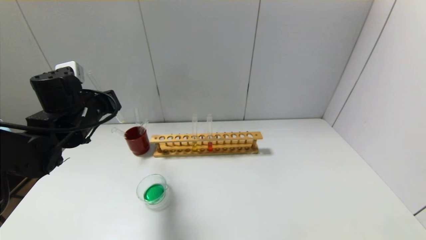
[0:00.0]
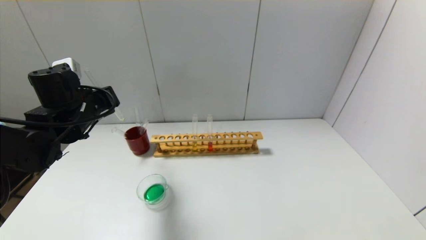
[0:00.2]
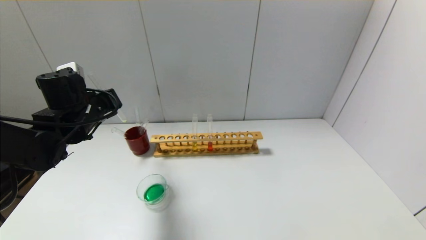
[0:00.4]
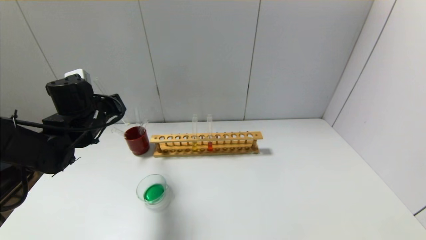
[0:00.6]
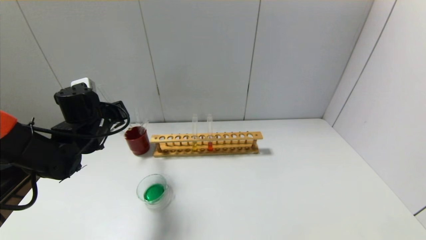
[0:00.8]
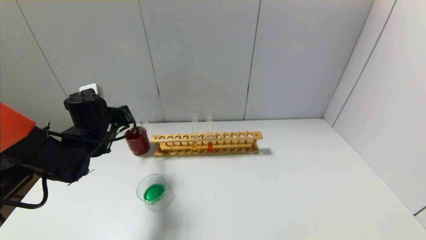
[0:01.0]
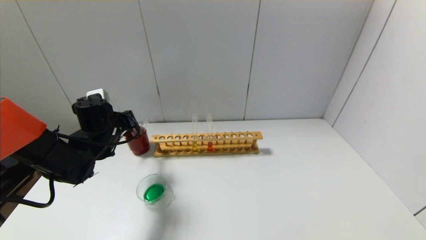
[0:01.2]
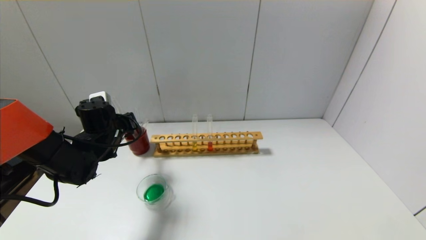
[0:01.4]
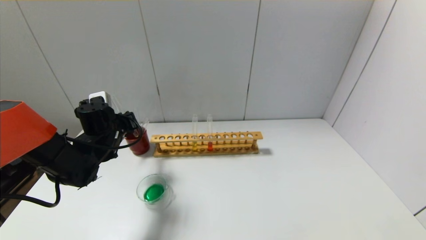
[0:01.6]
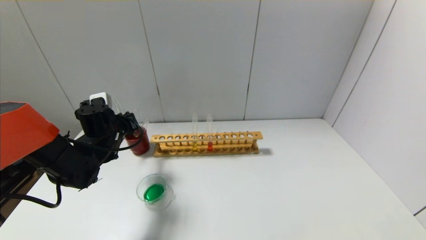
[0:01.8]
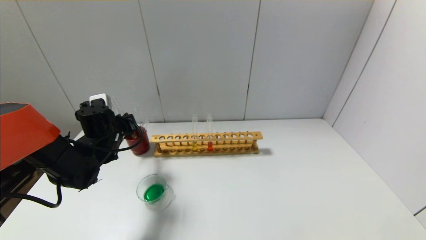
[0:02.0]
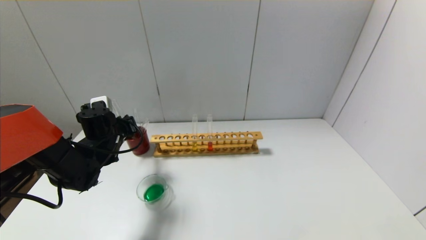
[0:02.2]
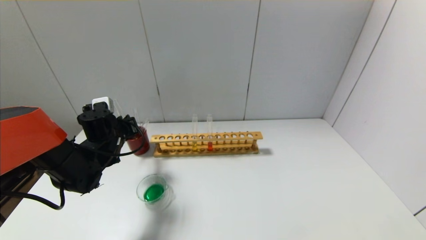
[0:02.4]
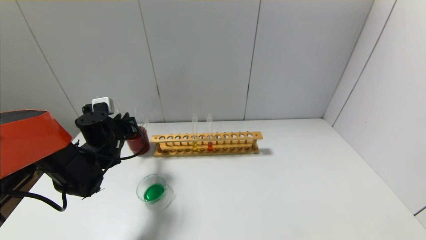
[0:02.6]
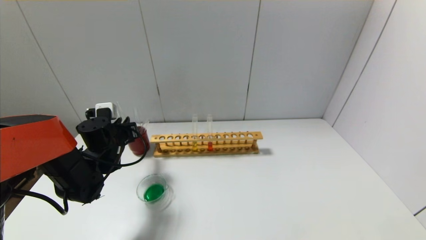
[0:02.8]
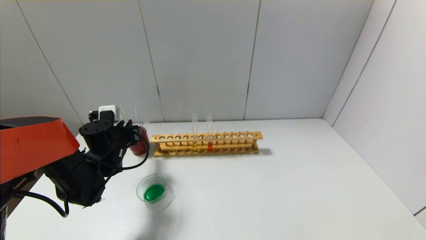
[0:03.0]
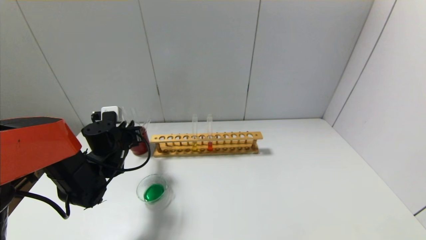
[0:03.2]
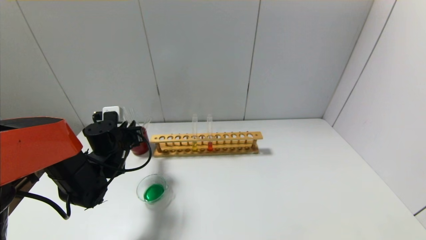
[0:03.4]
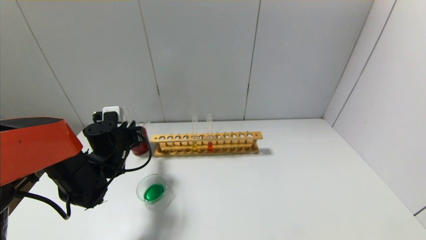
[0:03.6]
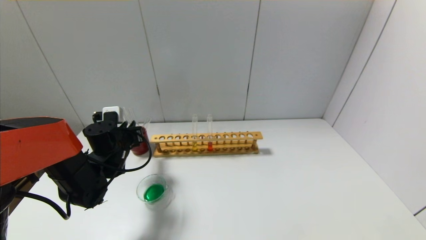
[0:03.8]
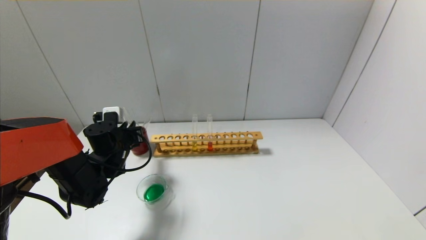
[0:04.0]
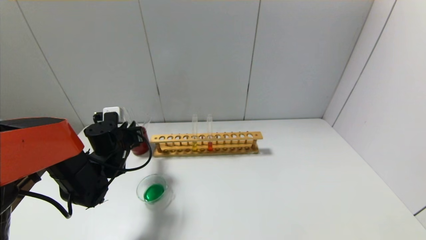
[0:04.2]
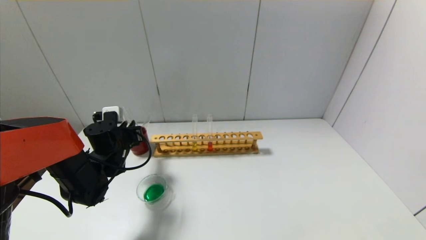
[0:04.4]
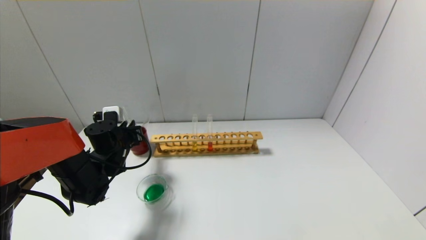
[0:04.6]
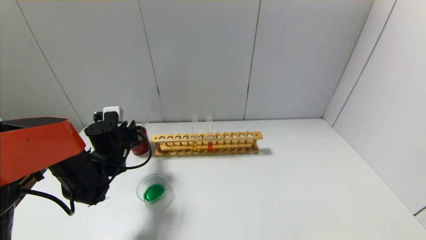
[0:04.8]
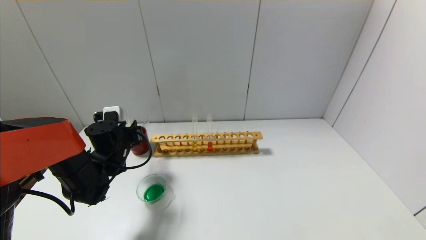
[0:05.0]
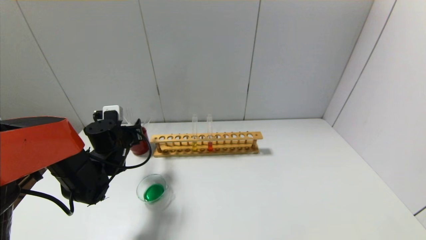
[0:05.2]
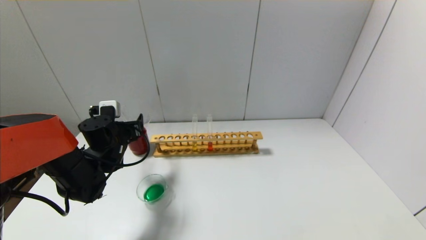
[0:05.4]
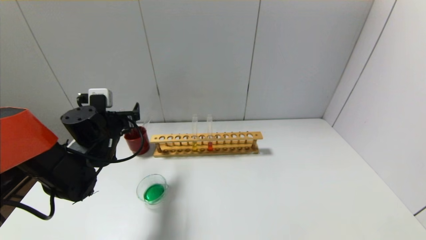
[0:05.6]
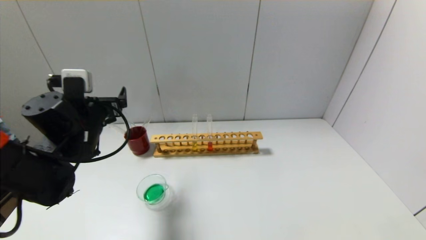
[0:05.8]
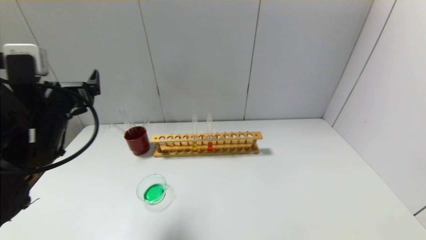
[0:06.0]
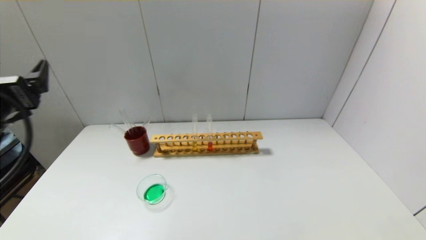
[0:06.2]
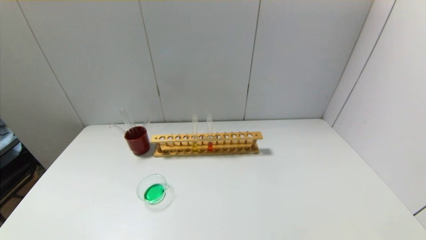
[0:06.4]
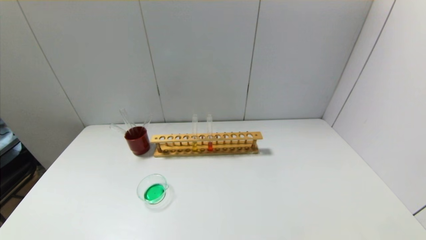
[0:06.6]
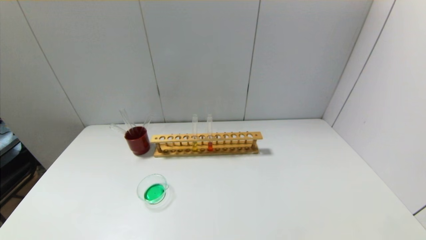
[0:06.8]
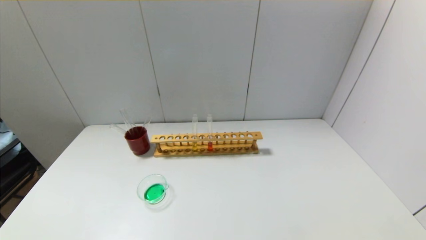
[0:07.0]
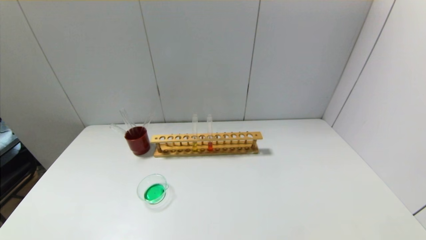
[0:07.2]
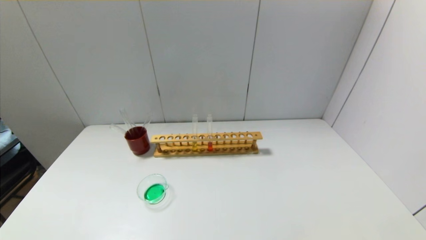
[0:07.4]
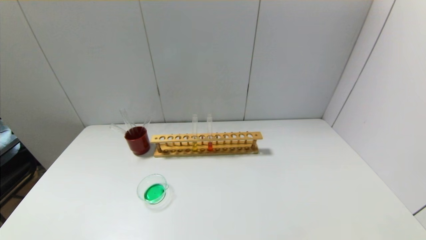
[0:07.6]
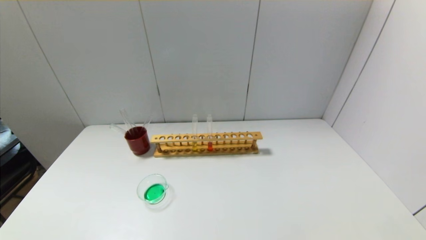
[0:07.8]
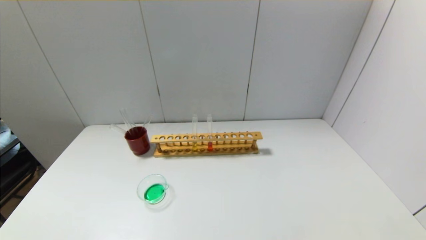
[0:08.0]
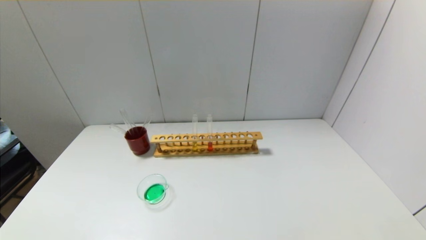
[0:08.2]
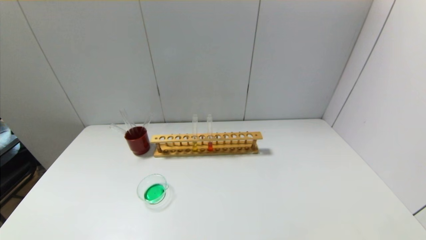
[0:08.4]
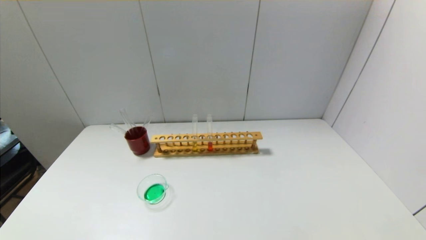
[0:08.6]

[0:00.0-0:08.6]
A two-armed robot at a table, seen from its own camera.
Step, 0.0 to 5.2 s: Place the test tube into the brown cup with the left gripper.
0.0 to 1.4 s: The left gripper is displaced downward by some 10 cm.
1.4 to 4.4 s: The grippers stay close to where they were, moving slightly.
4.4 to 5.8 s: The left gripper heads upward and backward, covering roughly 15 cm, and opens its fingers.
5.8 to 7.2 s: The left gripper is displaced backward by about 30 cm.

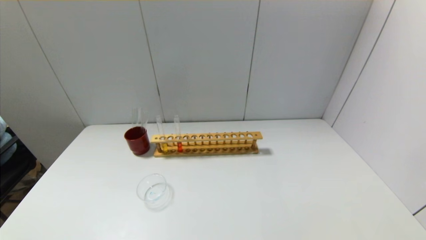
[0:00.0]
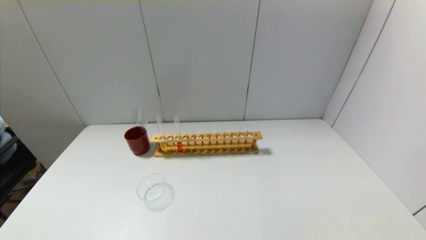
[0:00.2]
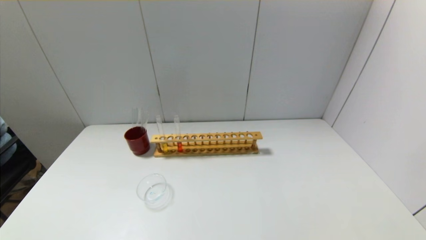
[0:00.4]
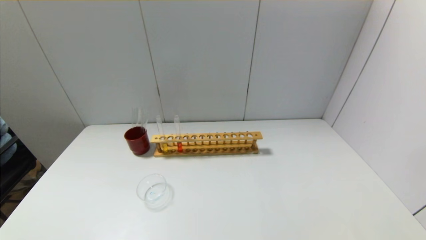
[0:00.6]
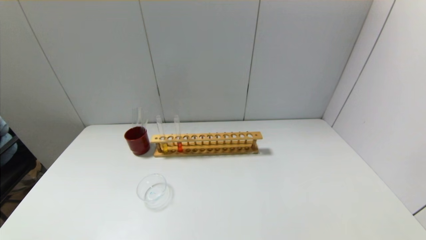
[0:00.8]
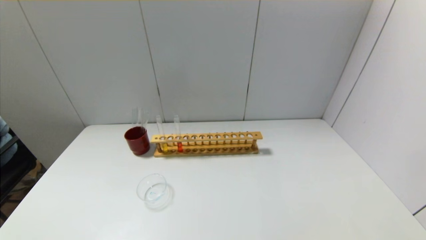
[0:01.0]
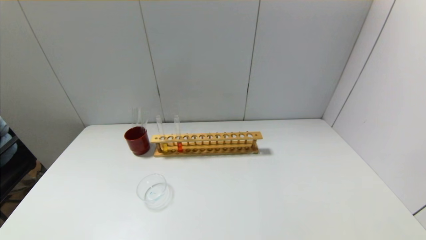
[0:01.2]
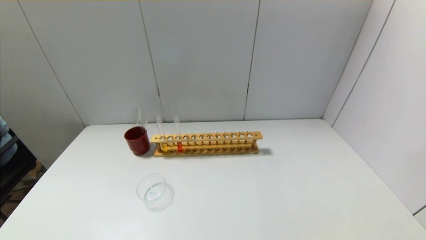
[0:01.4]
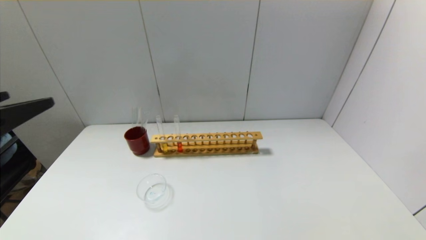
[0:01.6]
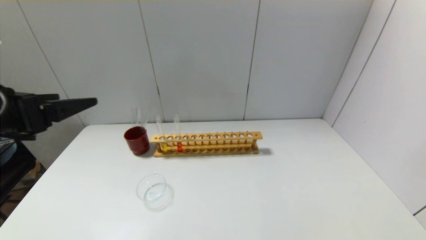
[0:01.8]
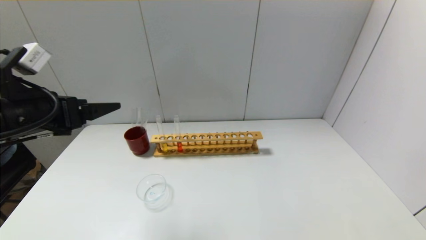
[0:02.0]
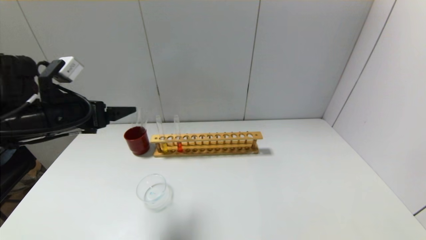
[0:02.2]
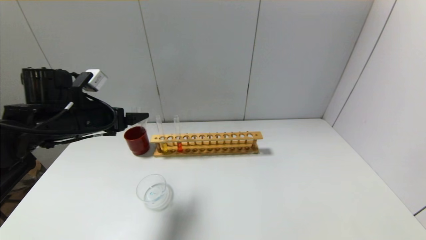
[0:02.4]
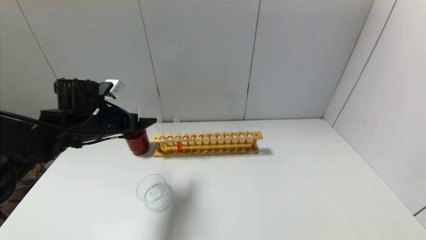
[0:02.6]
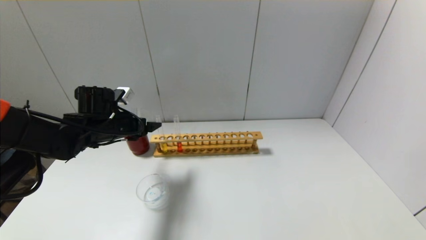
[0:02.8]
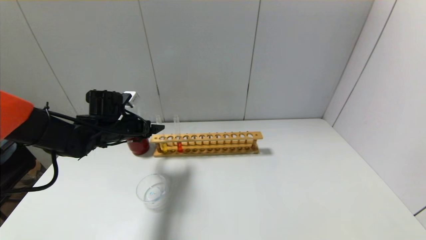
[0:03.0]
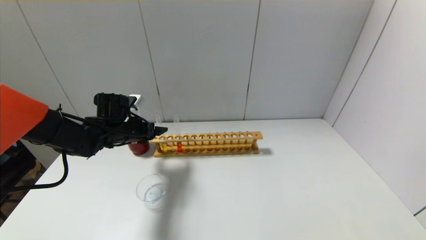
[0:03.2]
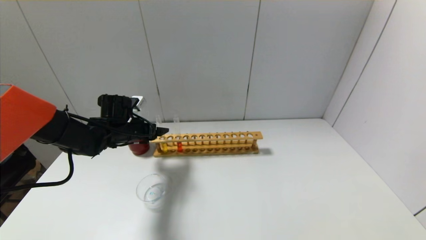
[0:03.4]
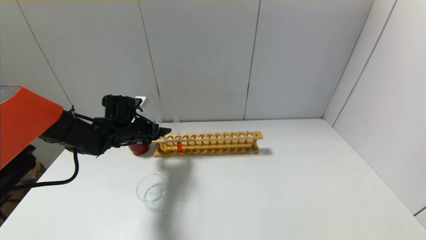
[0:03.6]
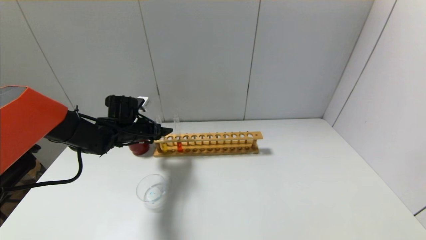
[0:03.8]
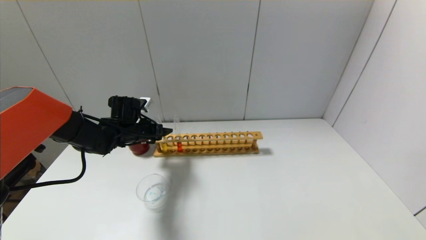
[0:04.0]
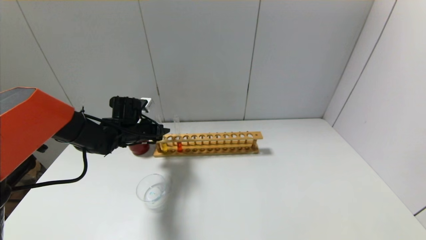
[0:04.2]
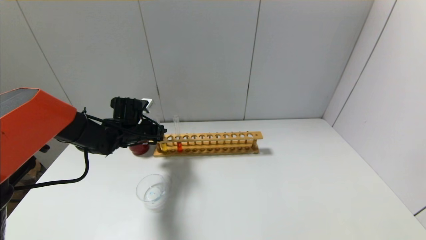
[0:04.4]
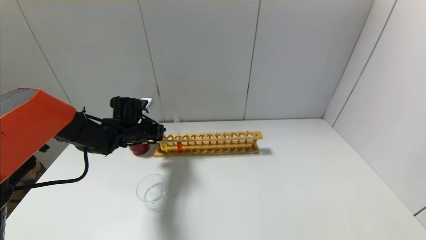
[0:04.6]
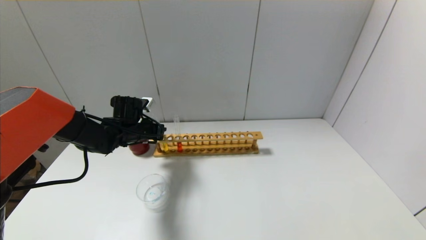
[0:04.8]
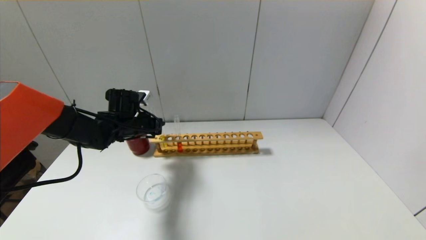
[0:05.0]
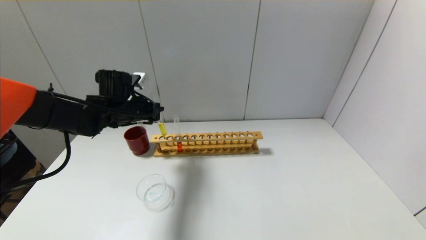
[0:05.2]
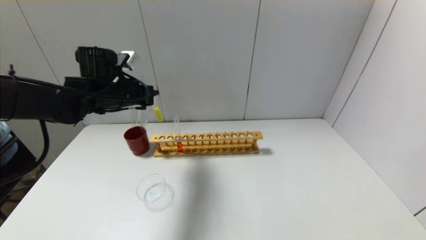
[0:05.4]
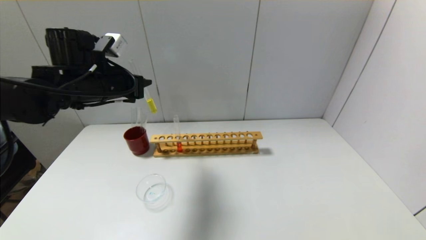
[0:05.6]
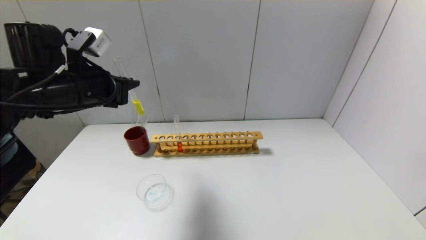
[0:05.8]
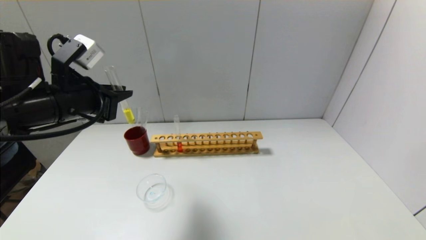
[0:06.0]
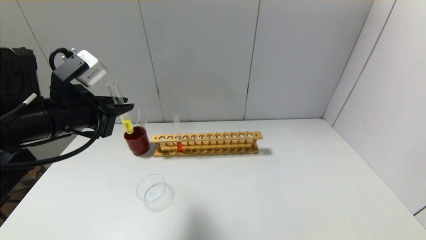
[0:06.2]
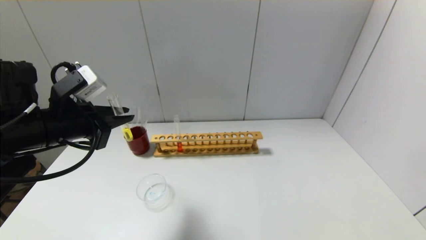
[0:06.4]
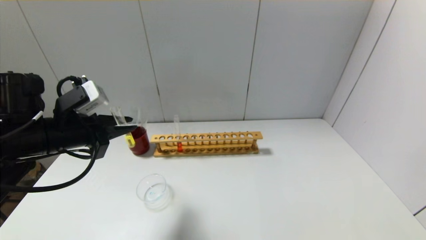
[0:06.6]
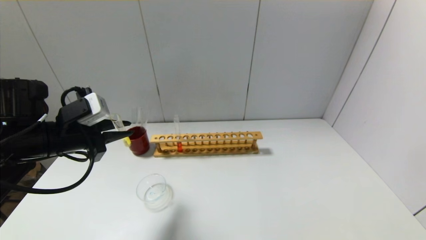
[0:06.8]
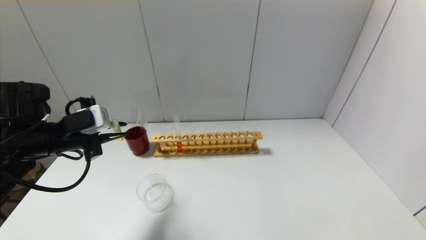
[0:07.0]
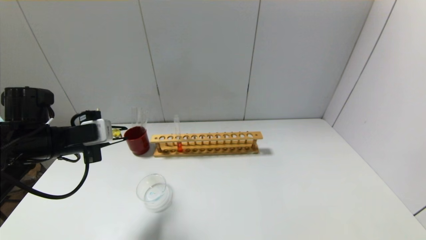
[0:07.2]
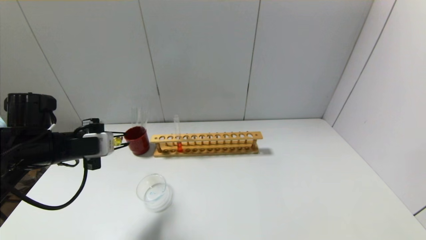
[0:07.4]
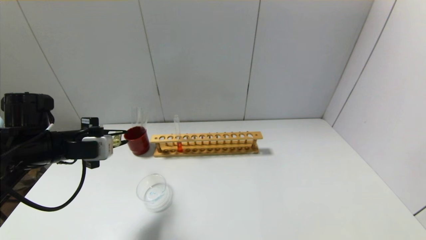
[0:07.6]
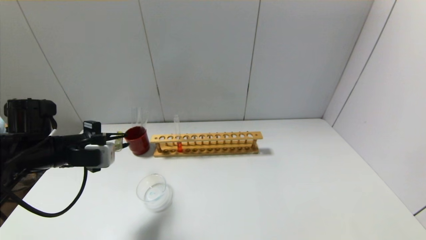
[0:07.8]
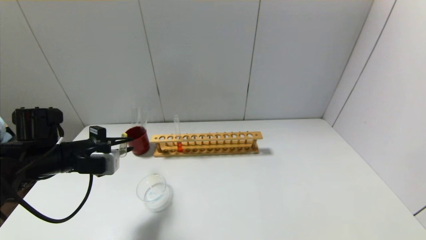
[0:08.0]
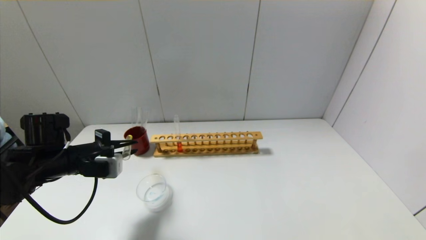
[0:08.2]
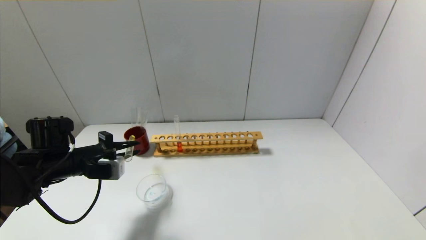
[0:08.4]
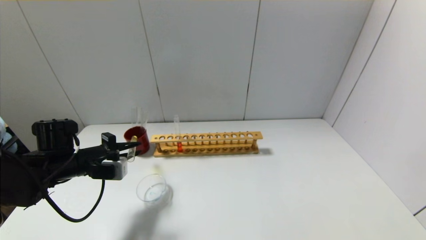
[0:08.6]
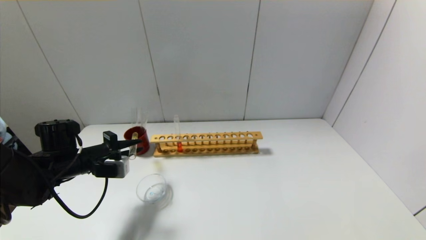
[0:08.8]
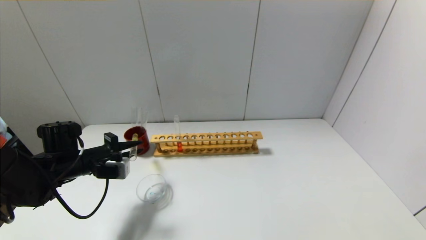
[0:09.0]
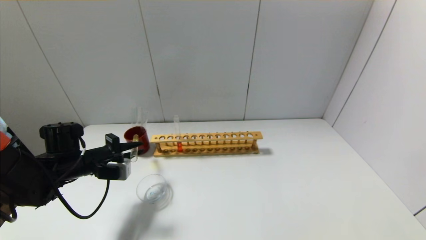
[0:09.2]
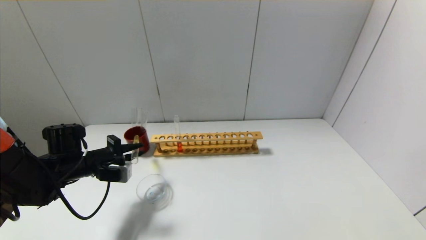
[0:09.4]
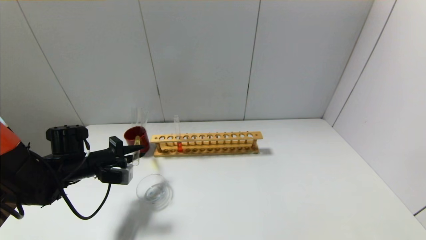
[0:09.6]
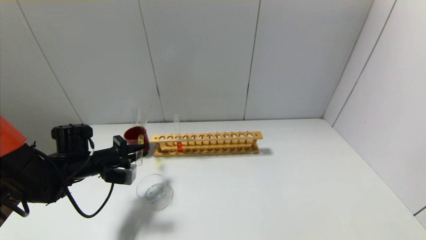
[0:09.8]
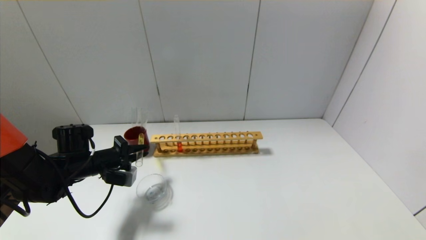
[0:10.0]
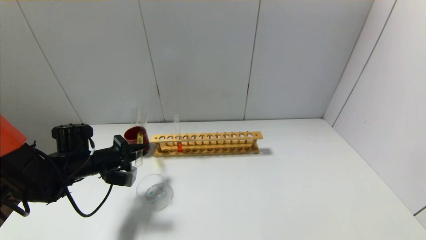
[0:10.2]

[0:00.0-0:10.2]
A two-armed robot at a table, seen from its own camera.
Step, 0.0 to 4.4 s: Grasp the yellow reagent with the left gripper.
1.4 to 3.0 s: The left gripper moves forward and downward, some 35 cm.
3.0 to 4.4 s: The left gripper moves some 5 cm, and closes.
4.4 to 5.8 s: The left gripper travels upward and backward by some 20 cm.
5.8 to 7.2 s: The left gripper is displaced downward and to the left by some 10 cm.
7.2 to 8.8 s: The left gripper travels downward by about 10 cm.
8.8 to 10.2 s: The grippers make only small movements.
